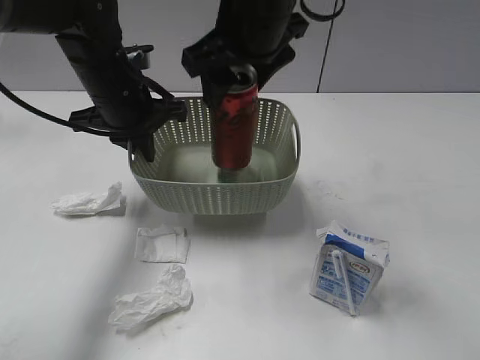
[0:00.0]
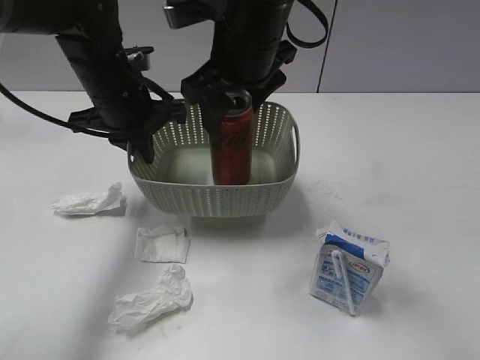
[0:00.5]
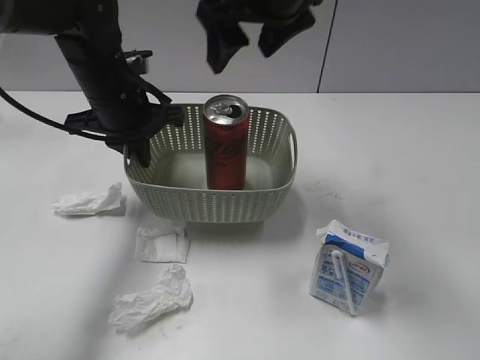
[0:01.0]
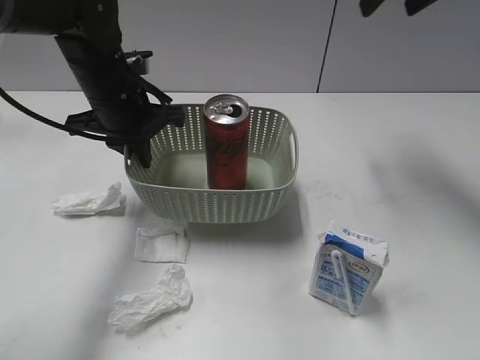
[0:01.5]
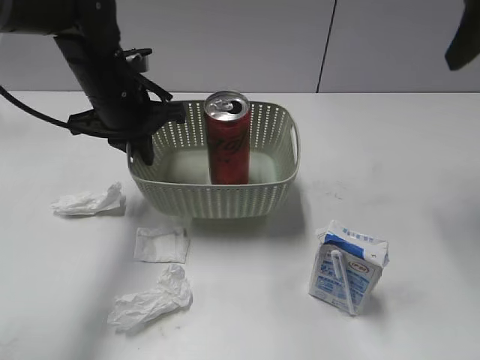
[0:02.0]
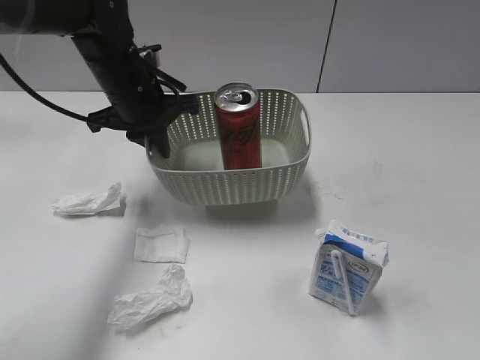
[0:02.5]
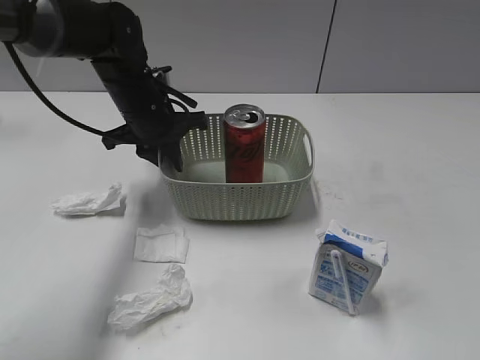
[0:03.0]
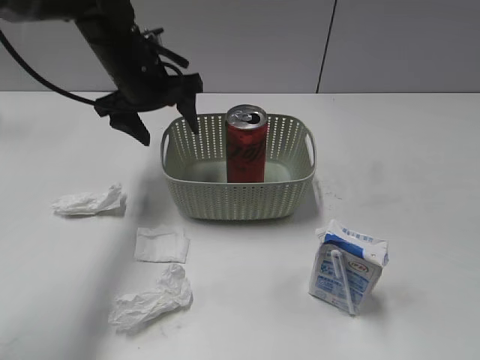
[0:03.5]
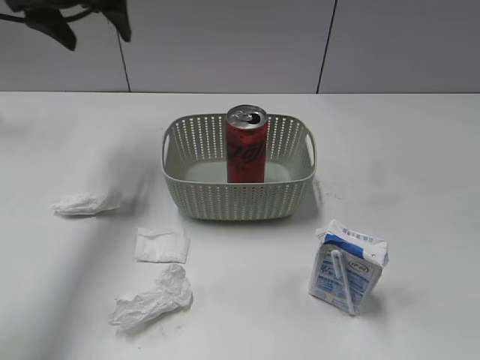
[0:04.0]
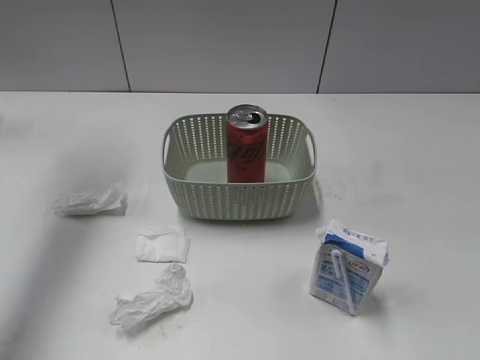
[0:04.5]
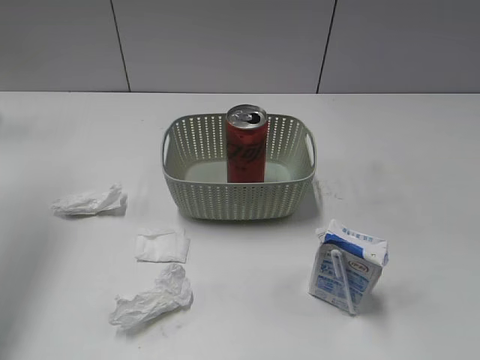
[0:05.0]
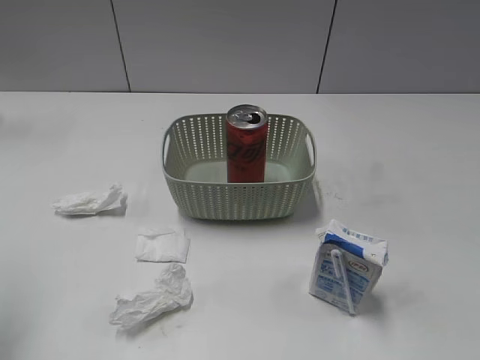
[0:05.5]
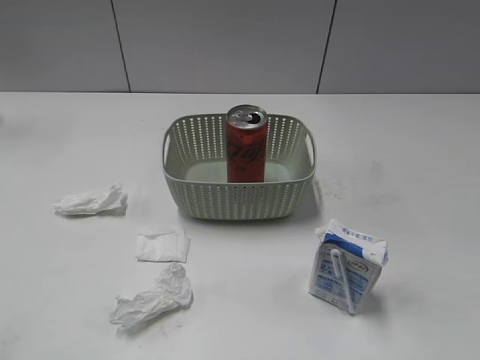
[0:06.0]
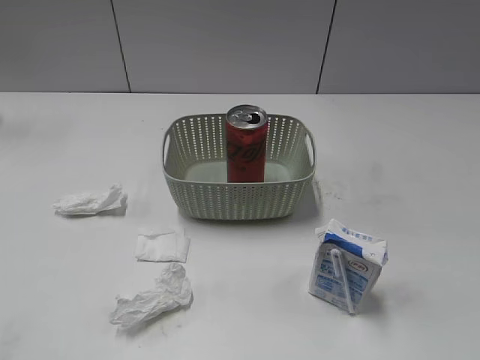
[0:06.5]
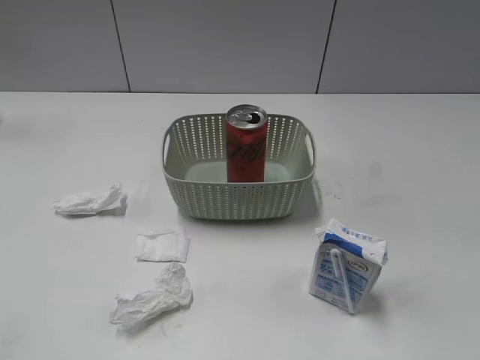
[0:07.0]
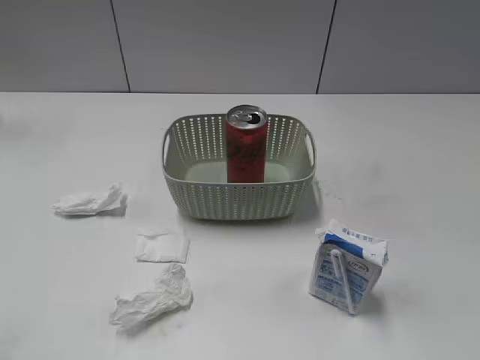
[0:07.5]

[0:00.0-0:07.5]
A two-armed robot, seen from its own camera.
0:00.0 to 0:02.0: The right gripper goes some 25 cm to the right, and opens and closes again.
0:02.0 to 0:04.0: The right gripper goes roughly 35 cm backward. Meanwhile the left gripper heads upward, to the left and forward, covering about 15 cm, and opens up.
0:04.0 to 0:05.5: The left gripper is displaced backward and to the left by approximately 30 cm.
